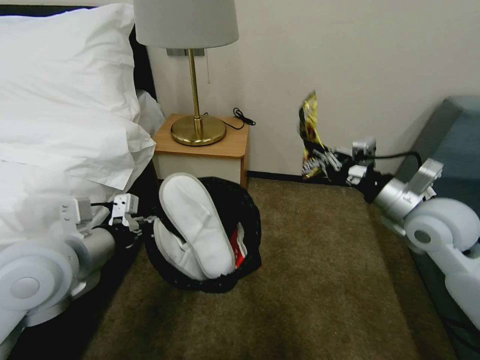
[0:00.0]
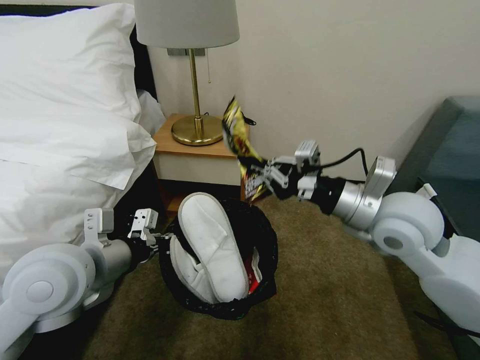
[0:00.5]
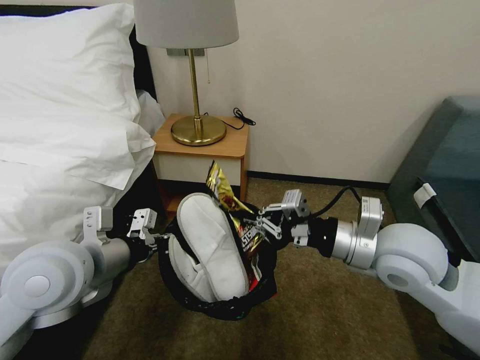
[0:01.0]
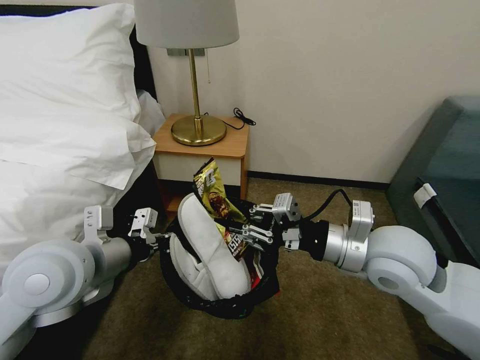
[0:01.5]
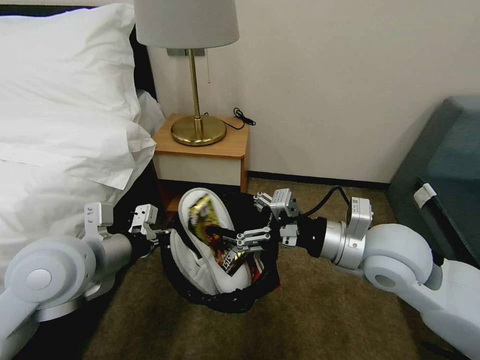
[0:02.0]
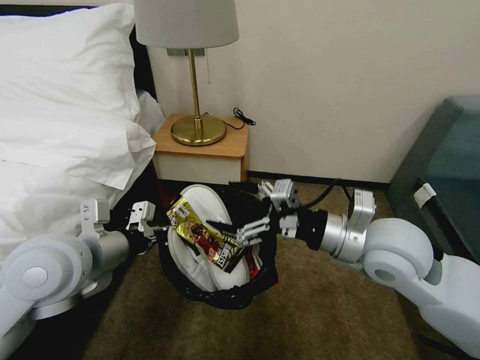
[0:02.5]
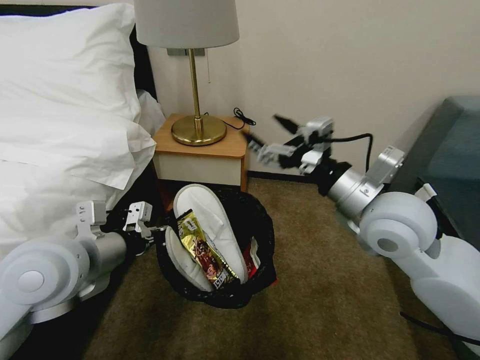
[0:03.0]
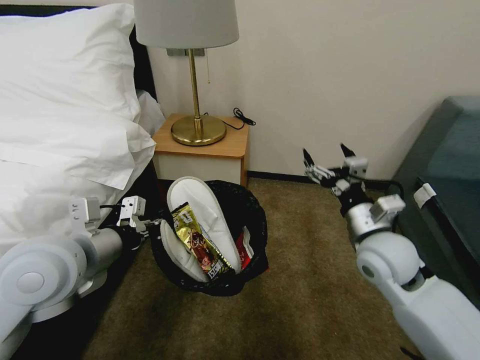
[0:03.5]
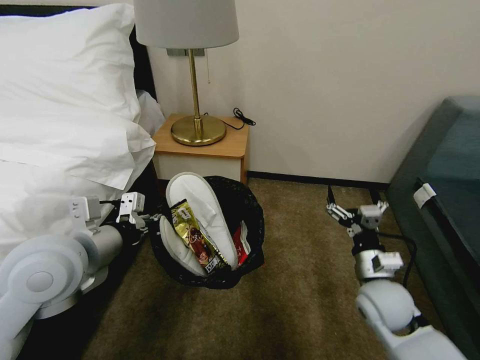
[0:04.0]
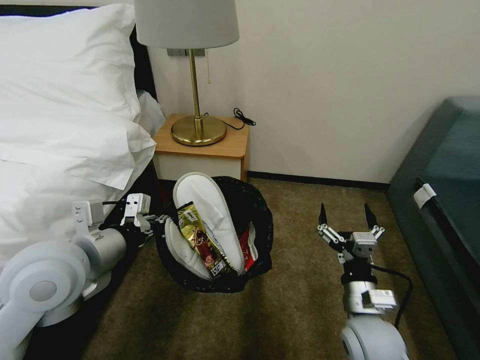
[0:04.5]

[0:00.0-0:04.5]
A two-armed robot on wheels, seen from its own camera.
Task of the whole recording: Pick up the trash bin, then pick up the garbage on the floor and place it into the trash bin.
0:00.0 to 0:02.0: The right gripper moves to the left and backward, some 10 cm, and opens its fingers.
0:02.0 to 0:04.5: The right gripper is displaced downward and backward by about 20 cm.
